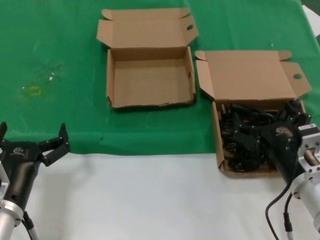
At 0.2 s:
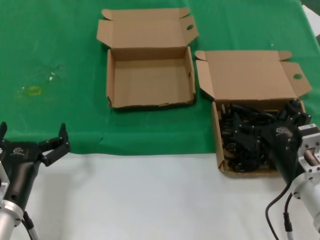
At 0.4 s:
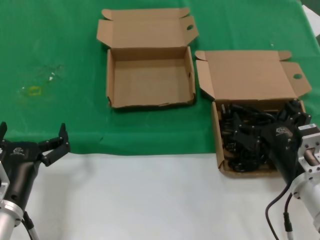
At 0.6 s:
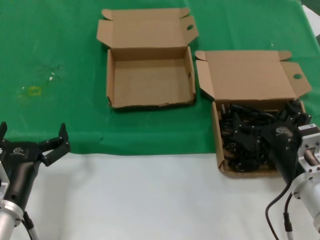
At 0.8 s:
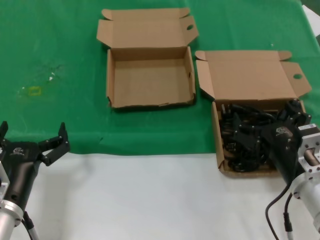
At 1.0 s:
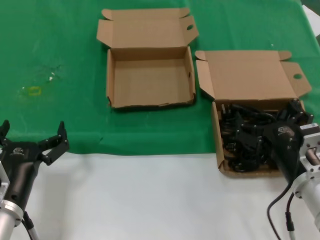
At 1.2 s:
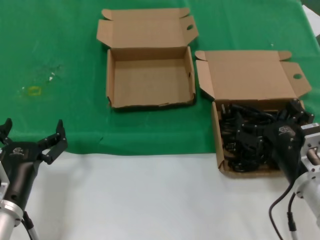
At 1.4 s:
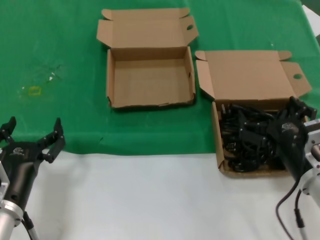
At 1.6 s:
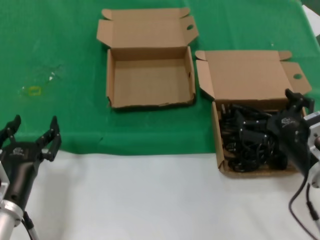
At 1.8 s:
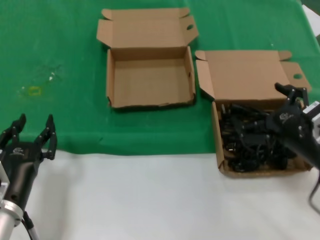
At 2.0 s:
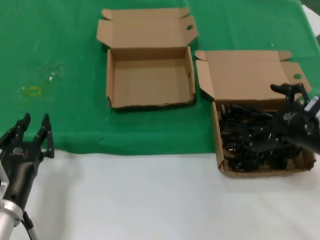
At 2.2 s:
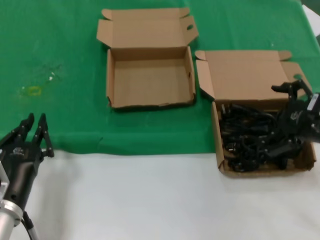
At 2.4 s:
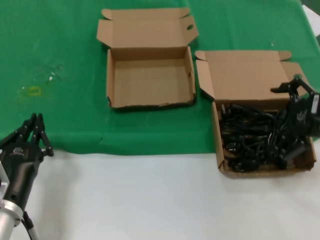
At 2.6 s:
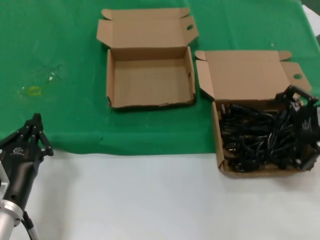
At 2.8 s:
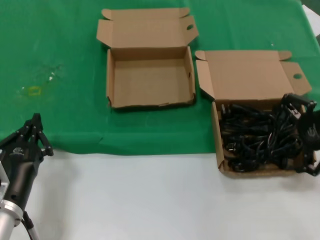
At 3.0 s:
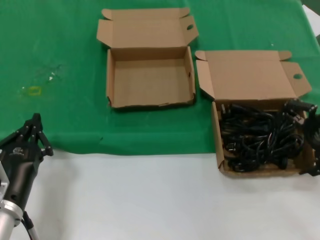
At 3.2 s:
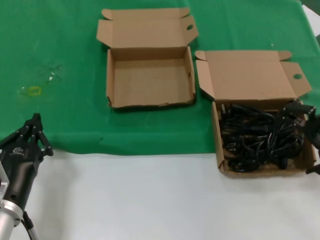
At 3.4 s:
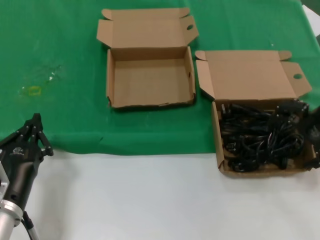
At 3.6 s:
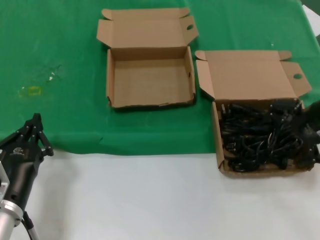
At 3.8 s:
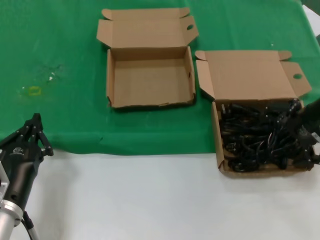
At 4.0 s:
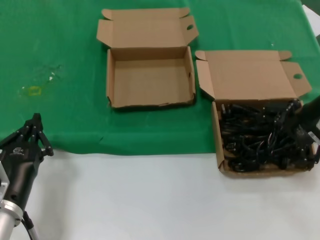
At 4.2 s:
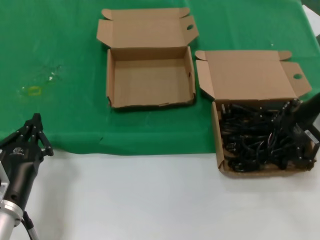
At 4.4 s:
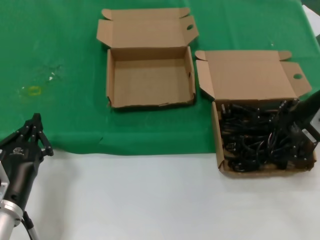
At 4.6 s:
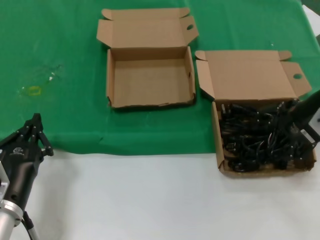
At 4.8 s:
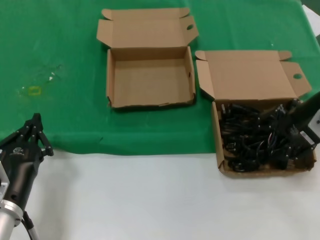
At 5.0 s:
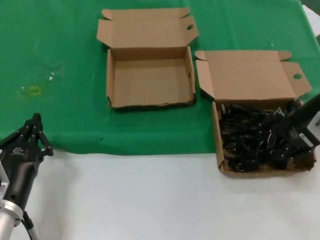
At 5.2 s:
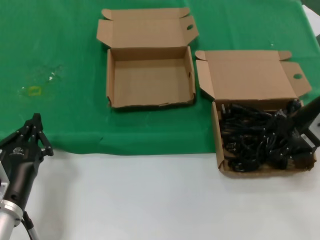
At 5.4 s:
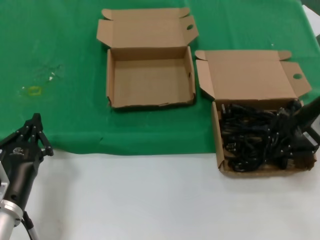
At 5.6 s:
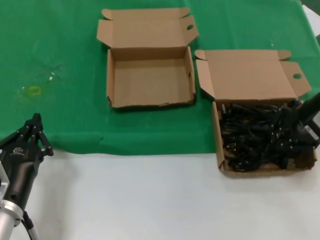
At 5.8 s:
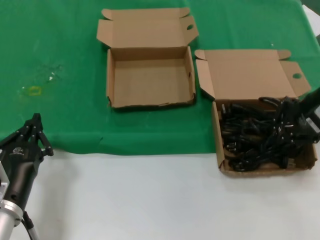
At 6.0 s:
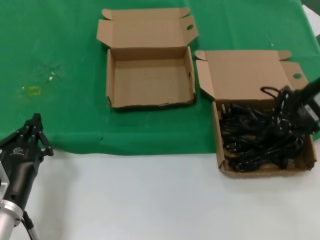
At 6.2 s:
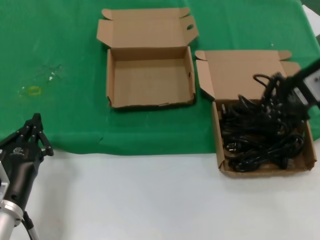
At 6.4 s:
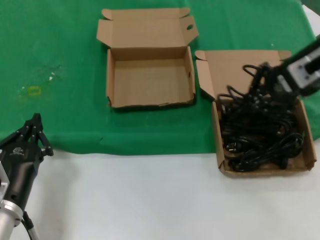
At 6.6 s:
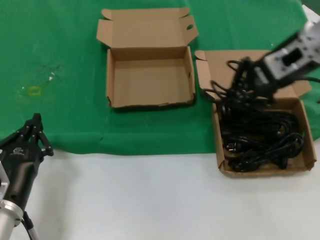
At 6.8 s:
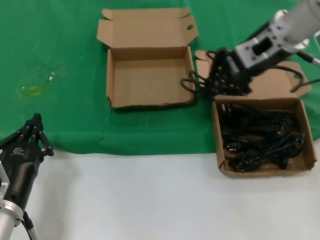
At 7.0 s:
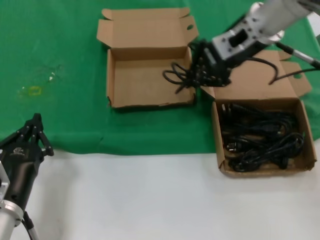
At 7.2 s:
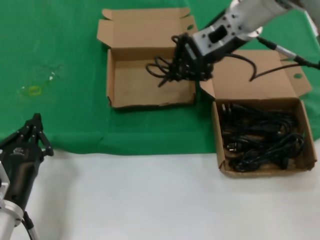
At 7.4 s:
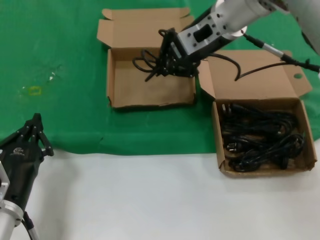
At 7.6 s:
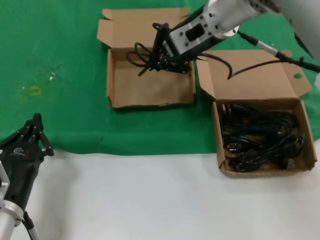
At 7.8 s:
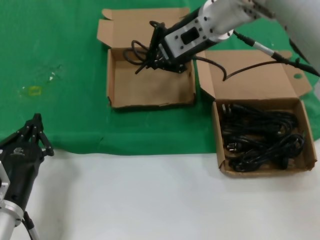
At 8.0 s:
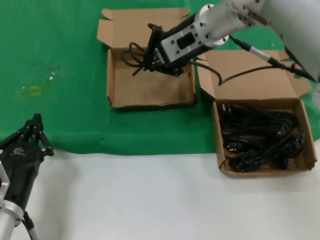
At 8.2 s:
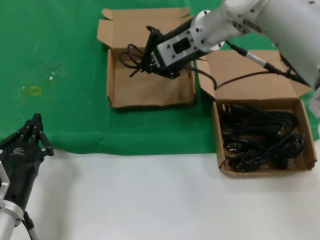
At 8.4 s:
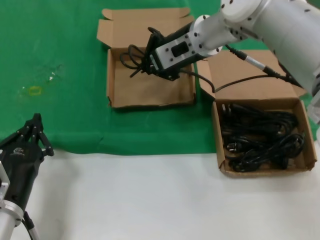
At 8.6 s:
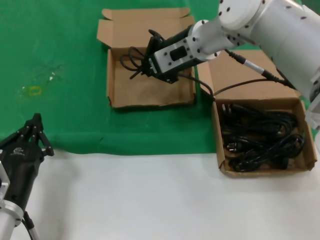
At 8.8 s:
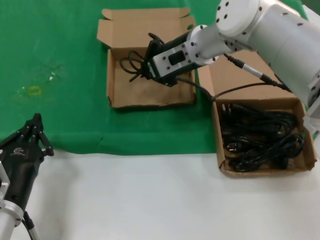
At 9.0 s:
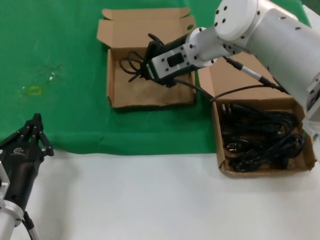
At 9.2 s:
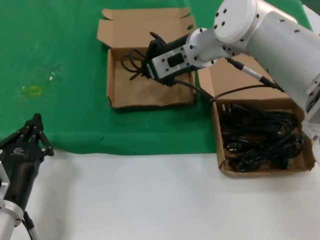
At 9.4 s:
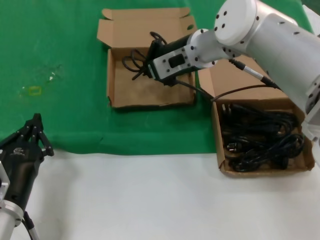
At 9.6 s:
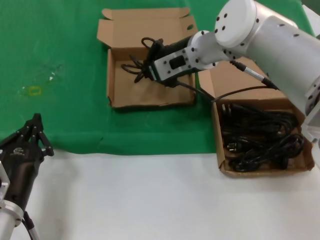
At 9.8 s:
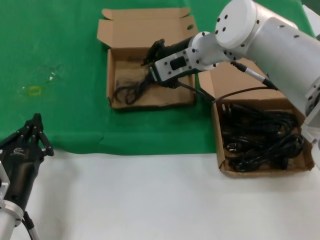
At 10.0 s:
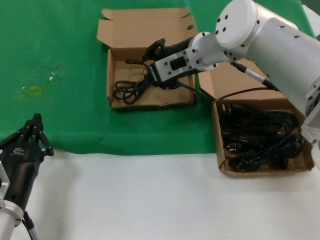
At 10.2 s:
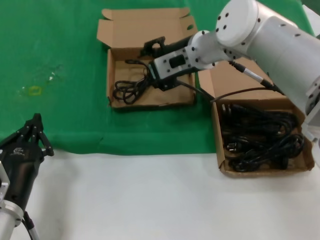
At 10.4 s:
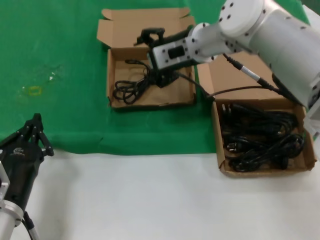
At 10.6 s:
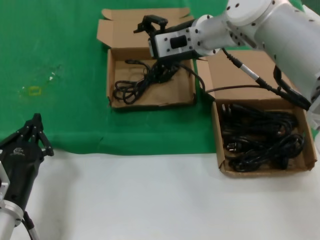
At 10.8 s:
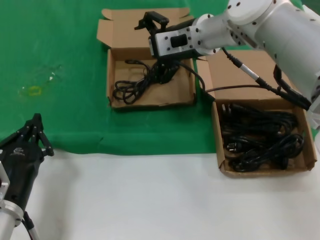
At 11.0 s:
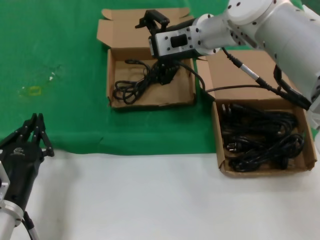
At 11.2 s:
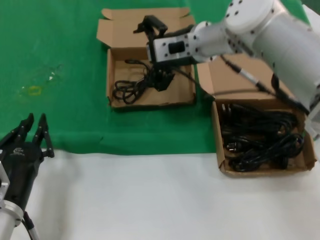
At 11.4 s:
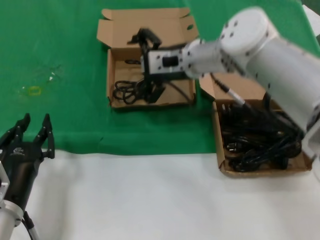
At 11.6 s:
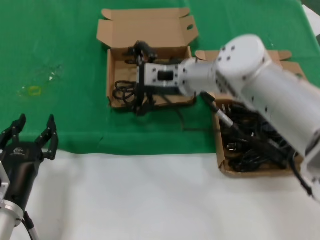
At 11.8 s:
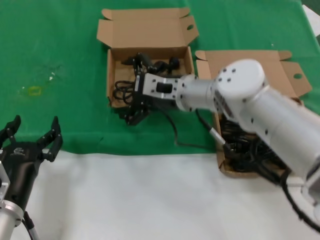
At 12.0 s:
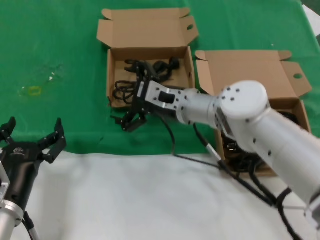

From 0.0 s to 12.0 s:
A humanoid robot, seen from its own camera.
Task of the whole recording: take the parts from the box containing them and put them into an empty box.
Step, from 0.0 s to 5.2 s: Grasp the data cable.
Step, from 5.4 s to 10.0 s: Place the data cable in the another box.
From 0.0 s to 1.6 s: The hands stay close to where they were, moving slightly.
From 1.6 s to 3.0 s: The right hand is displaced upward, to the right and forward by about 20 cm.
From 3.0 s to 4.4 s: The right hand heads forward, covering roughly 5 cm.
From 4.4 s to 6.0 s: The right hand moves some 5 cm.
From 6.0 s to 7.6 s: The right hand travels to the left and forward by about 25 cm.
From 7.6 s to 9.0 s: The right hand heads downward, covering about 5 cm.
From 9.0 s to 10.4 s: There are only small adjustments of the hands.
From 10.4 s to 12.0 s: The right hand heads downward and backward, covering about 15 cm.

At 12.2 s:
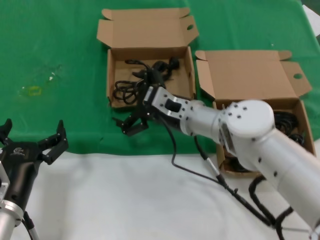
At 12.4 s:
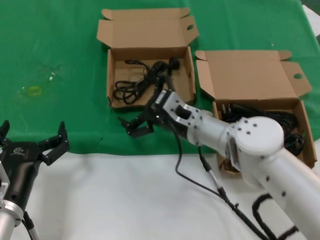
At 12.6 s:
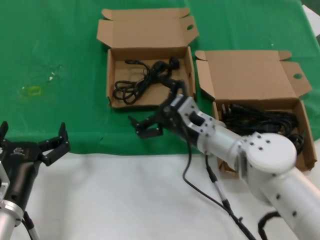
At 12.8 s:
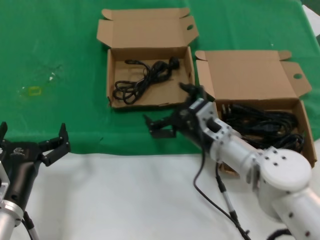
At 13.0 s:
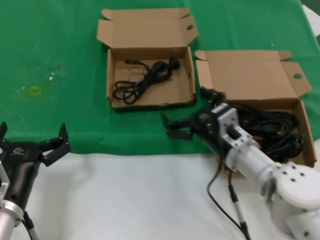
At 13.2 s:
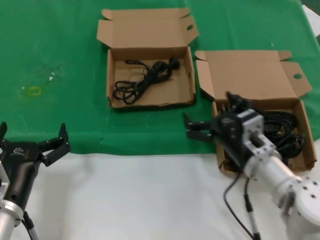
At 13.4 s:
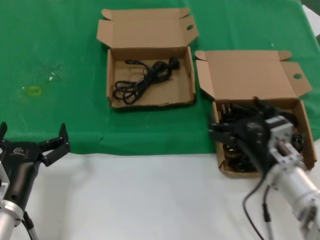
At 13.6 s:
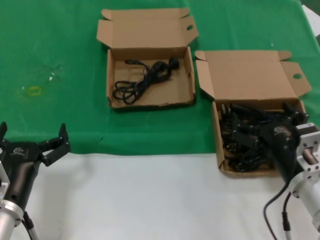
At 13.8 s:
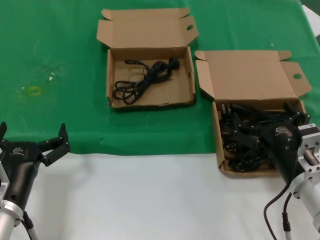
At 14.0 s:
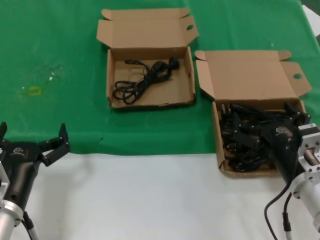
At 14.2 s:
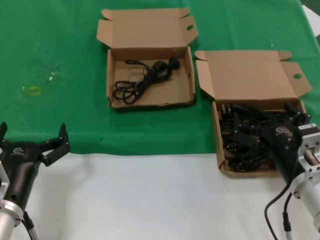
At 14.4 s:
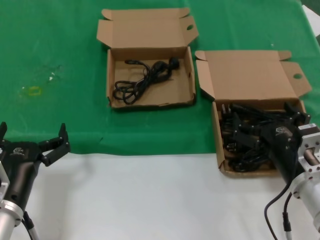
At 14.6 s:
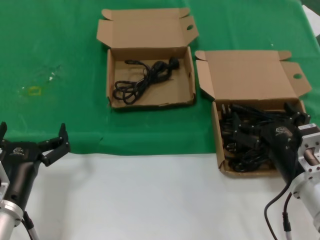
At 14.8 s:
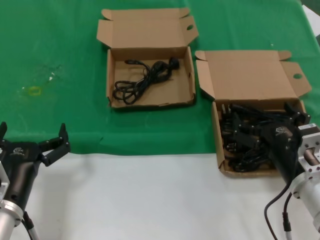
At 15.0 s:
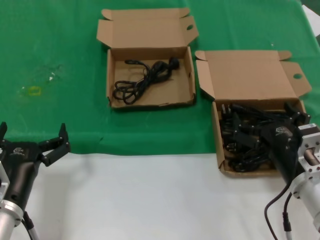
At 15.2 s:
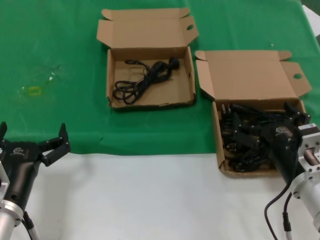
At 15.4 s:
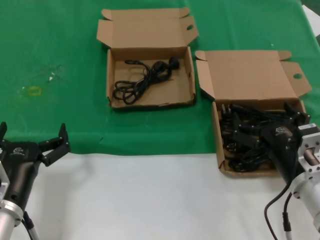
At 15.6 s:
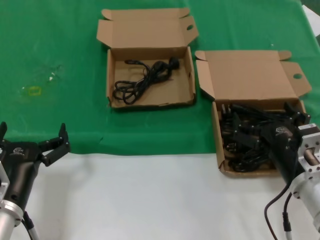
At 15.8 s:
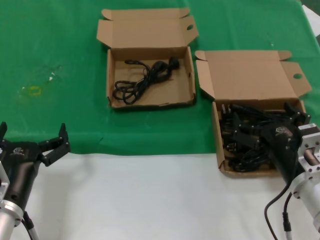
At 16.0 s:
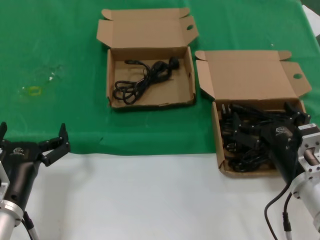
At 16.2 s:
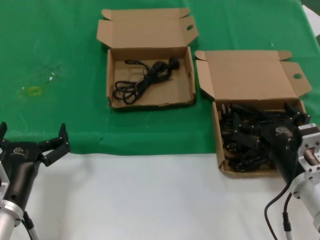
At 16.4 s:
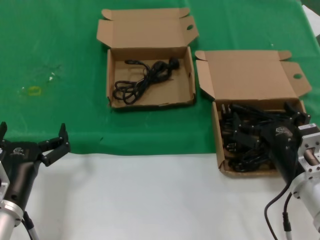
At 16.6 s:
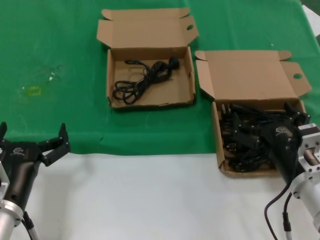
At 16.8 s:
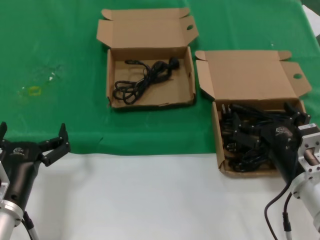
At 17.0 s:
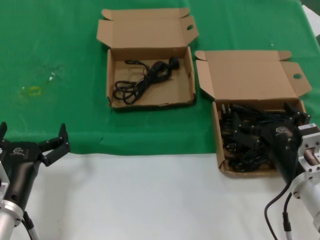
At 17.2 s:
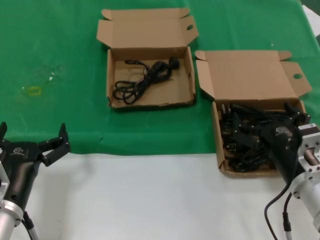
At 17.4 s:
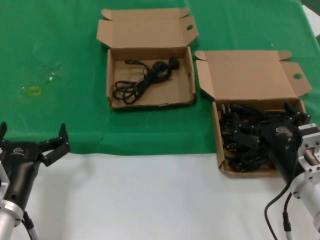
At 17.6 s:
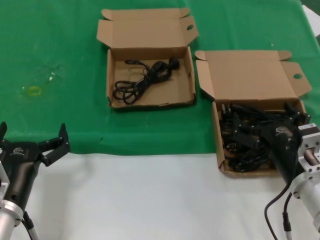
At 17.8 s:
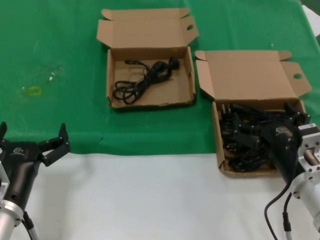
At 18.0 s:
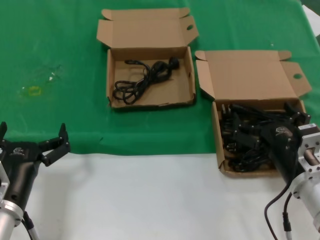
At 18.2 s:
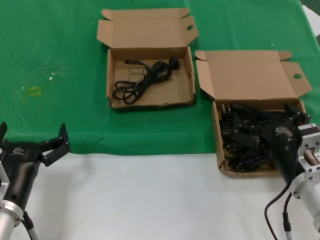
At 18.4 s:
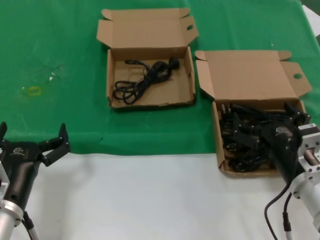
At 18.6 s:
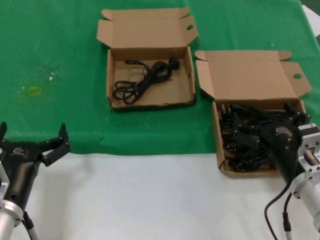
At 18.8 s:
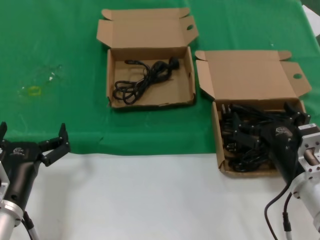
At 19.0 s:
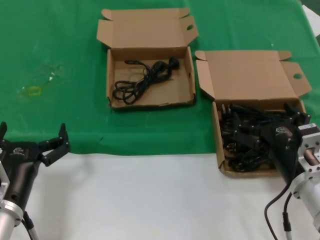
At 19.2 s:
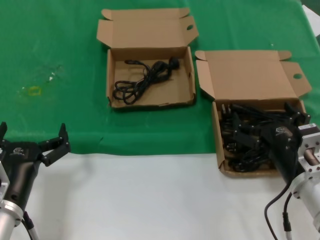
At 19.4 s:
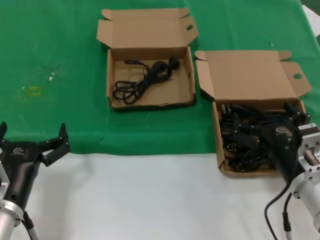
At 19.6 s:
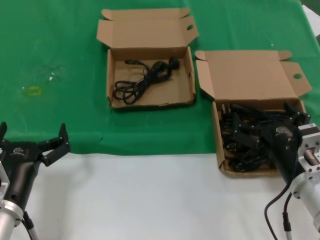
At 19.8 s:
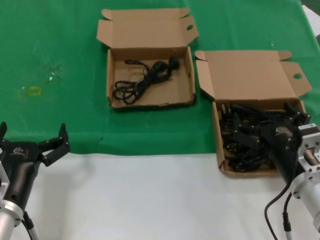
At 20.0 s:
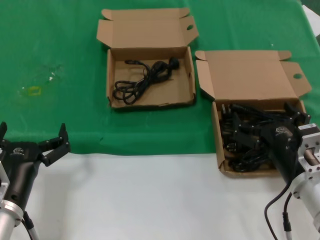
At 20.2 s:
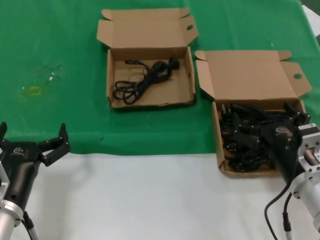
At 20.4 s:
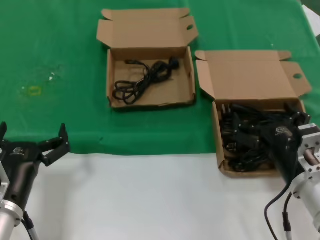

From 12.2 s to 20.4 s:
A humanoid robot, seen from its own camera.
Task of the whole recording: take the parts from the box containing them and put them into an empty box.
From 12.2 s to 13.8 s: The right hand travels backward and to the right by approximately 25 cm.
From 13.8 s to 20.4 s: Both hands stay put.
